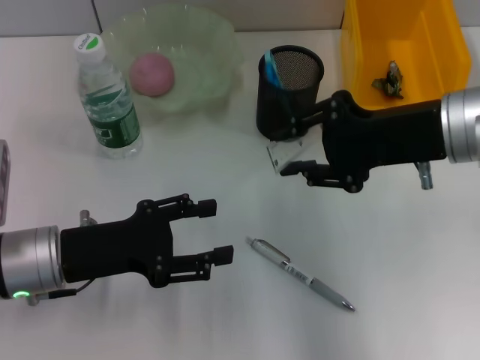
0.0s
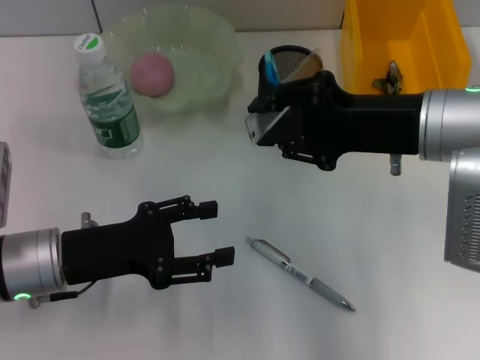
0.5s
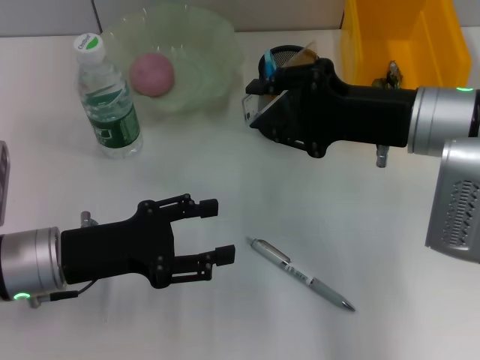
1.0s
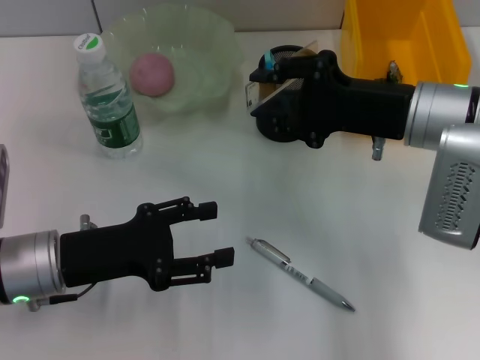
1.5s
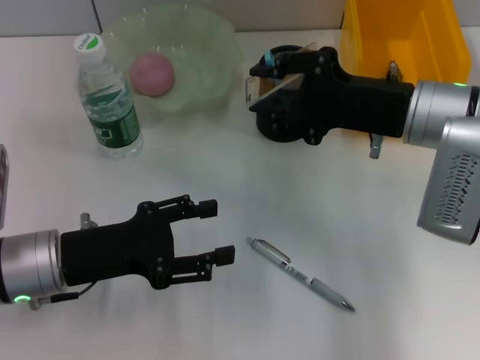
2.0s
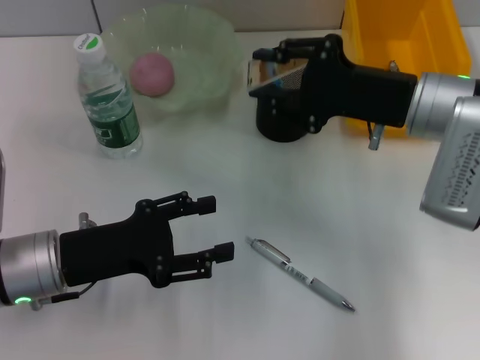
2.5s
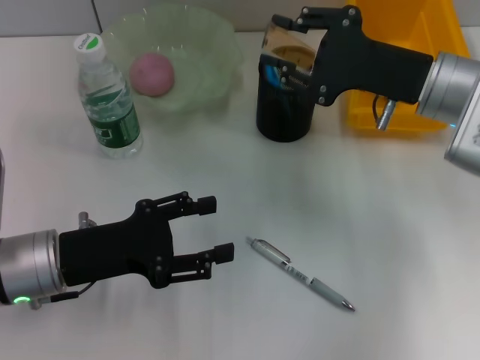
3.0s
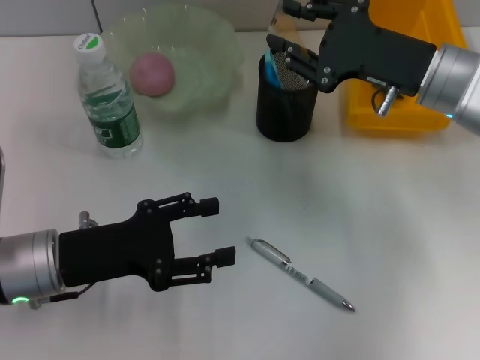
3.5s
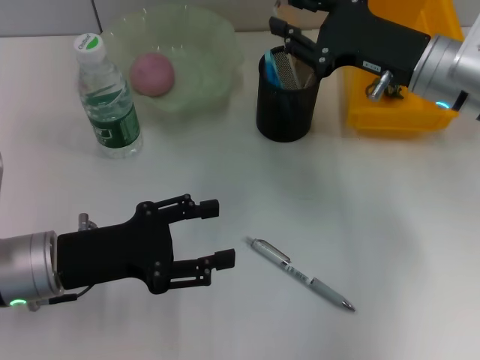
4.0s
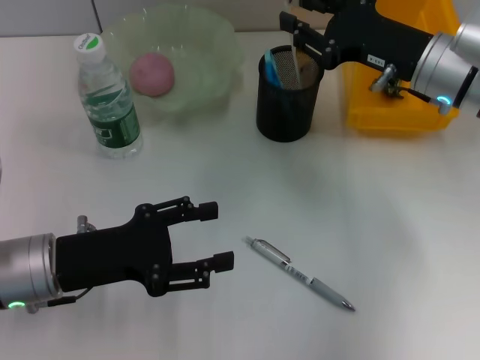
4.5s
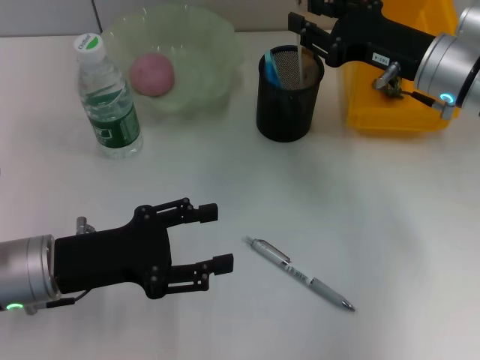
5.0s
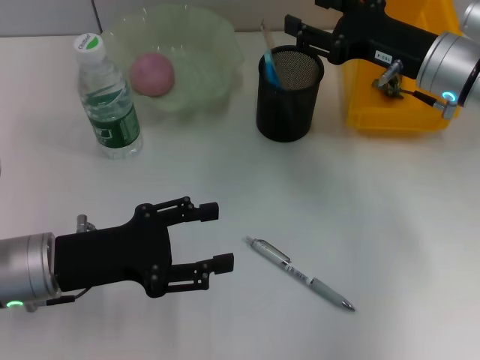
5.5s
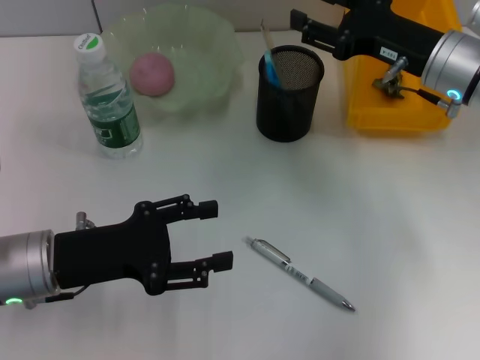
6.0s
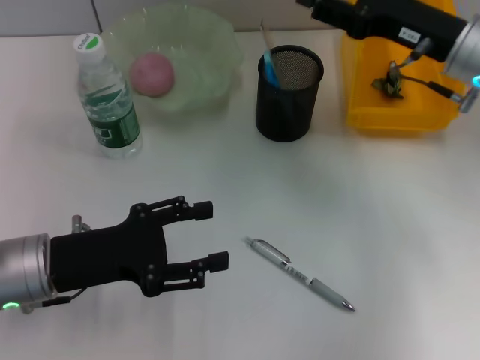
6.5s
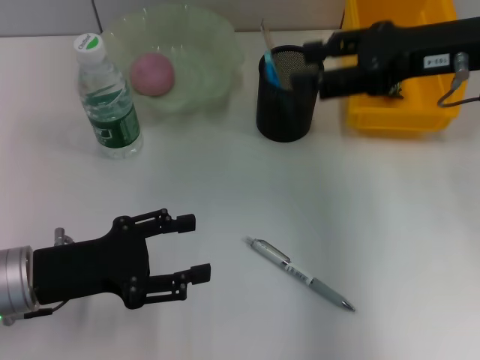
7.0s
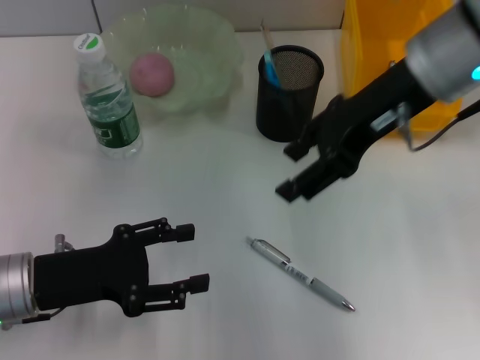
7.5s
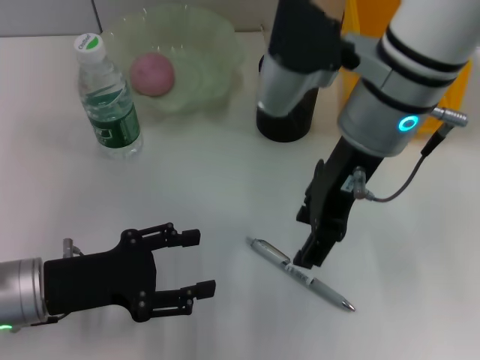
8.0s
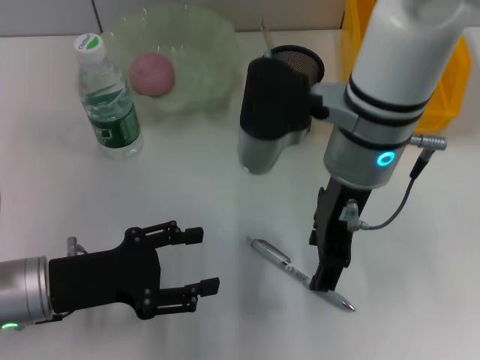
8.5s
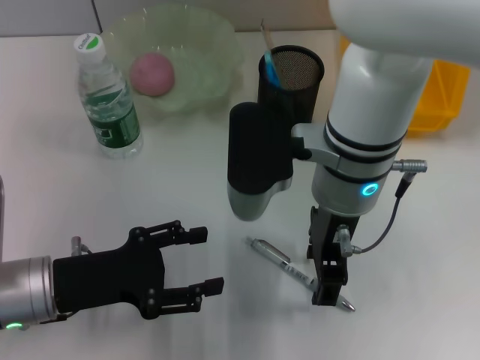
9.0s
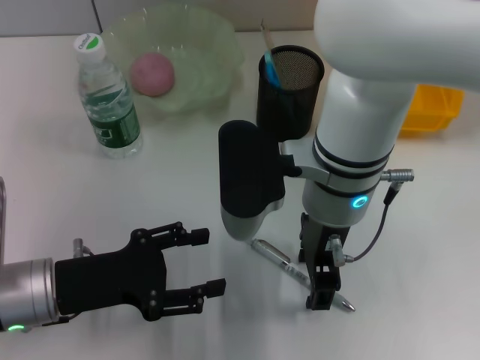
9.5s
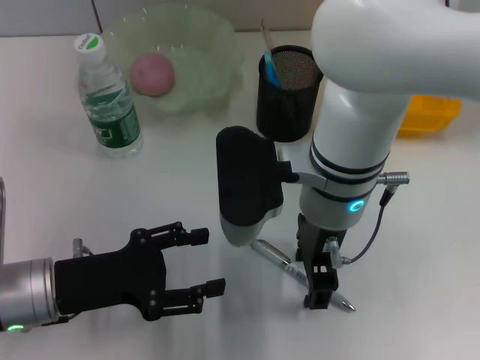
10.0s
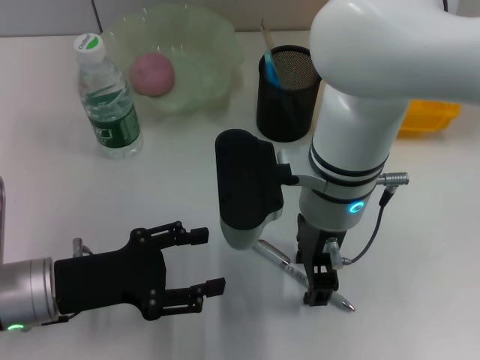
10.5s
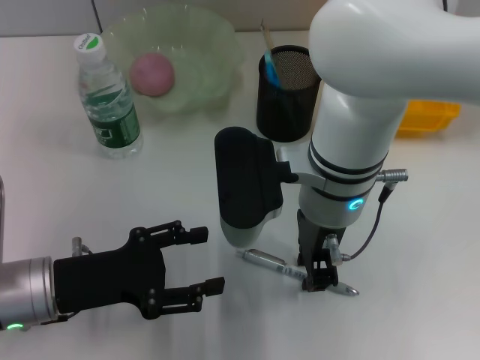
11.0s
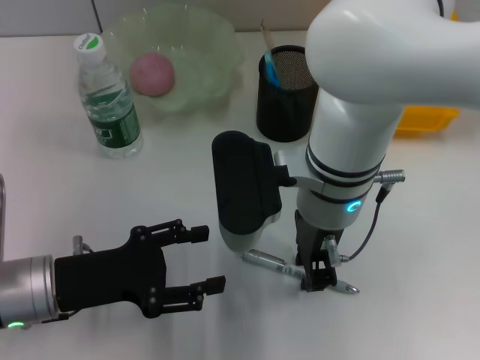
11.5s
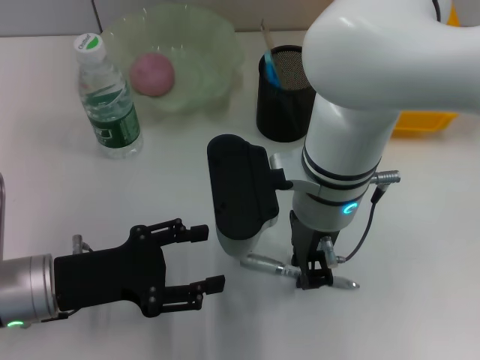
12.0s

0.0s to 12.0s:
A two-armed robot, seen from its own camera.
Step, 0.0s to 5.5s: Place the ruler into the pen holder with the right hand.
0.0s to 2.0s: The right gripper ends up approximately 5 cm from where it was.
4.0s to 6.0s: The right gripper opens.
6.0s to 8.0s: The right gripper moves to the left, upward and backward, approximately 15 cm.
8.0s to 10.0s: The right gripper travels downward by approximately 5 cm.
10.0s to 12.0s: The right gripper closes.

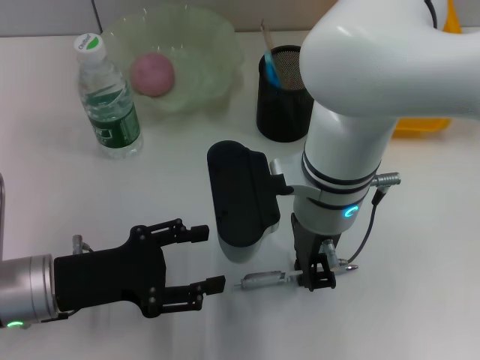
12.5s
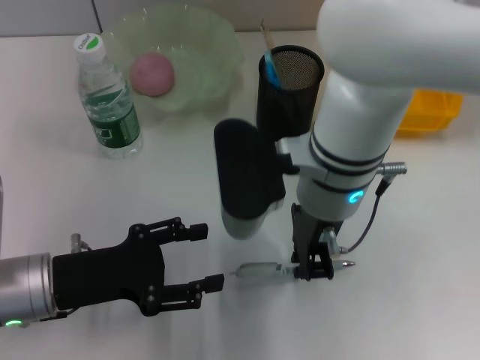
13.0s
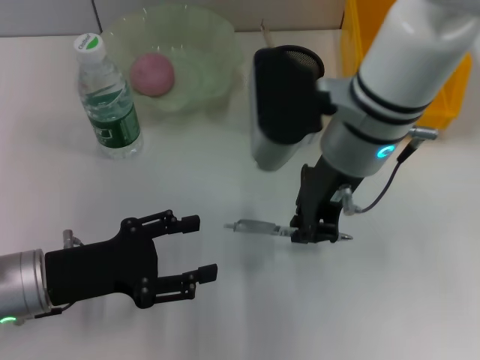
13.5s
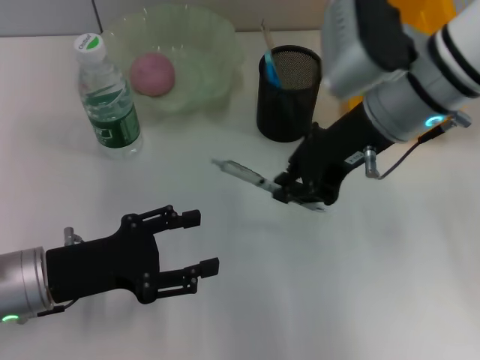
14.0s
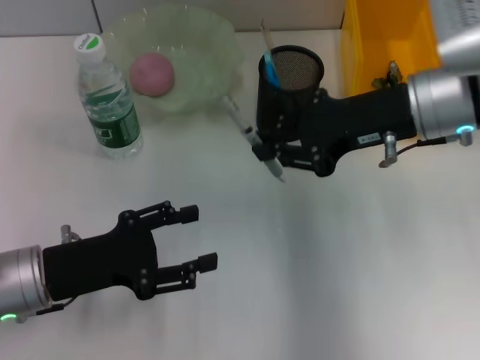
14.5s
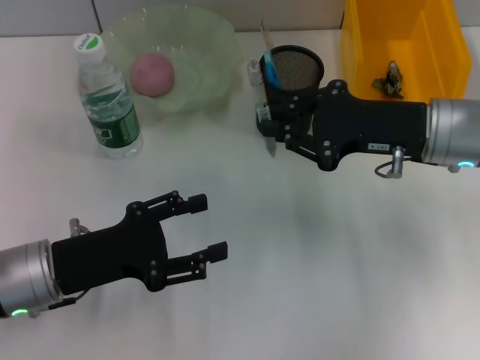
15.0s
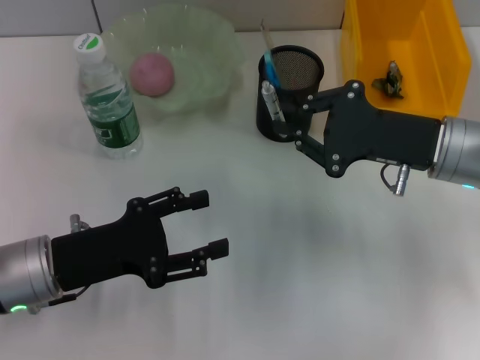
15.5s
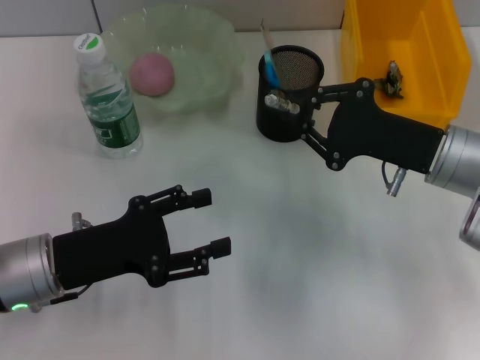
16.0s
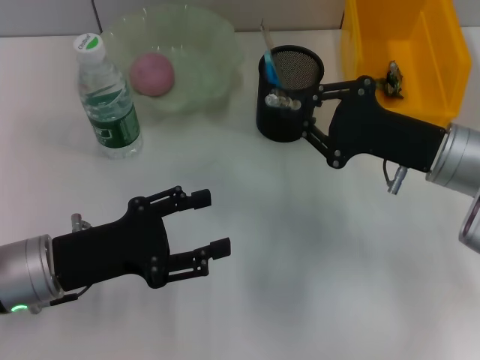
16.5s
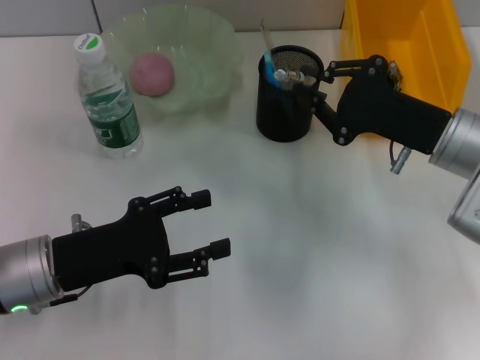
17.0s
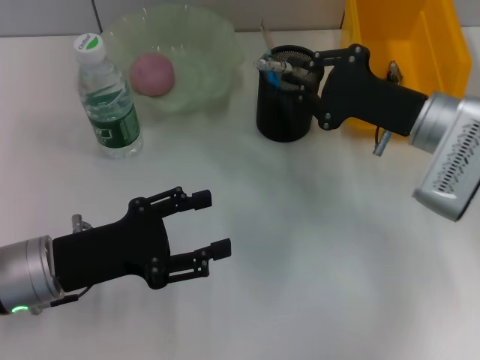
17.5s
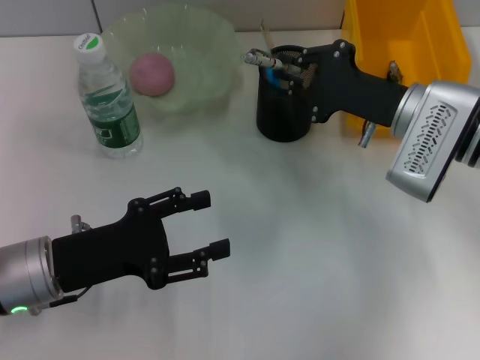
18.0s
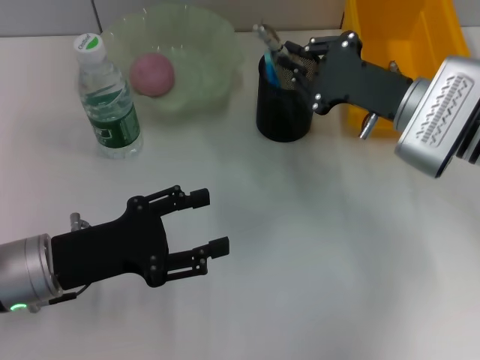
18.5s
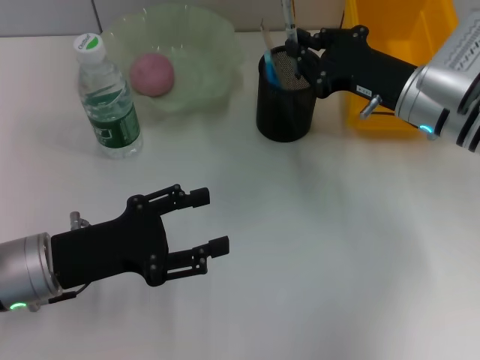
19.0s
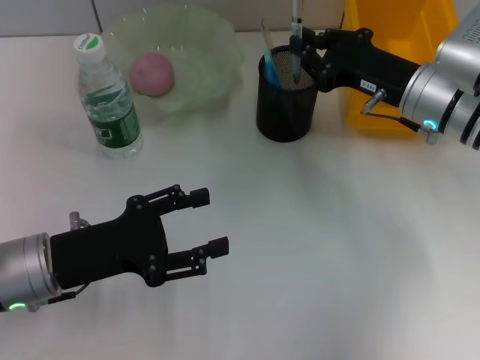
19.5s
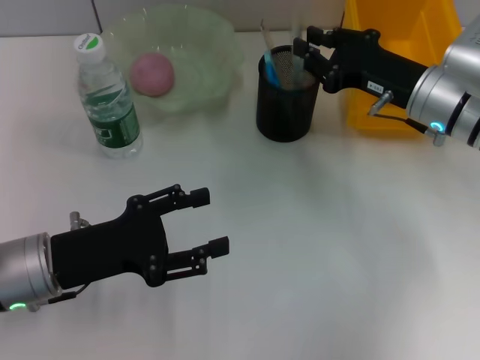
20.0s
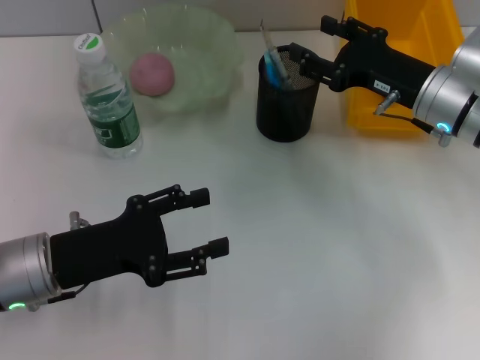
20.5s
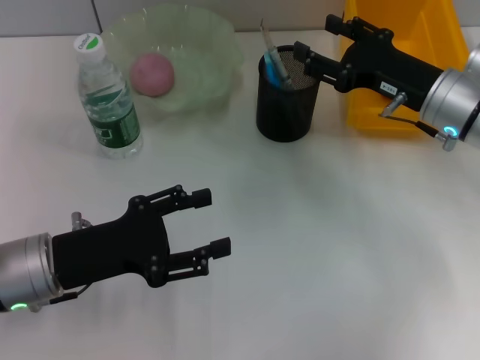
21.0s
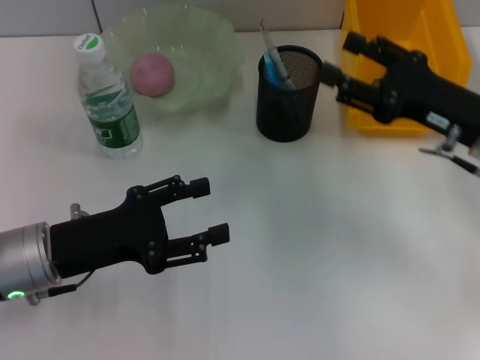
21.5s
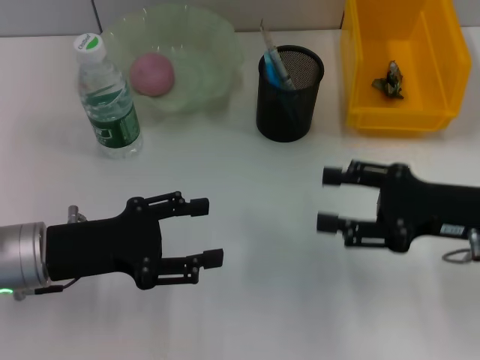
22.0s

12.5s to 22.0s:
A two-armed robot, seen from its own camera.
Step, 13.0s to 20.0s: Place the gray spring-action pen into the pen holder with the right hand.
12.5s to 14.5s: The right gripper moves to the right, roughly 15 cm.
14.5s to 16.5s: The right gripper is displaced downward by approximately 10 cm.
16.5s to 18.0s: The right gripper goes some 5 cm forward.
20.0s to 22.0s: The right gripper heads backward and to the right, covering some 10 cm, and opens up.

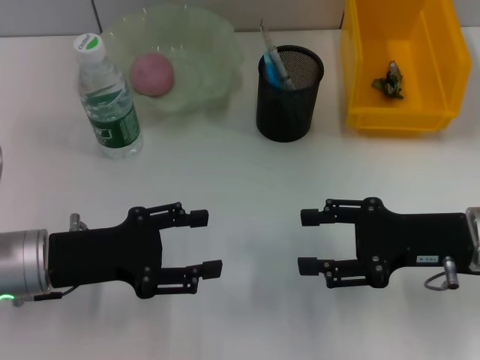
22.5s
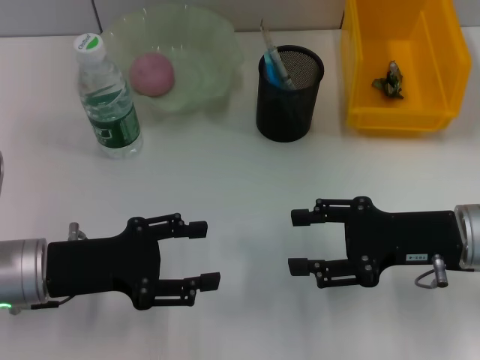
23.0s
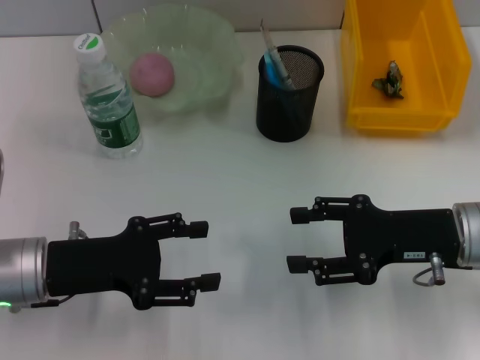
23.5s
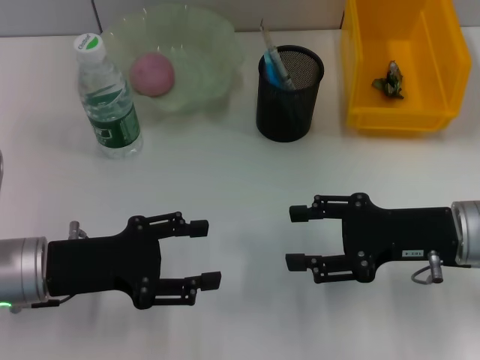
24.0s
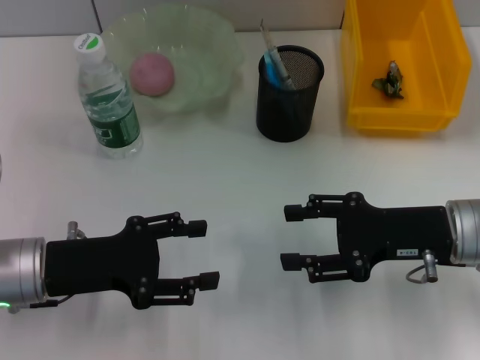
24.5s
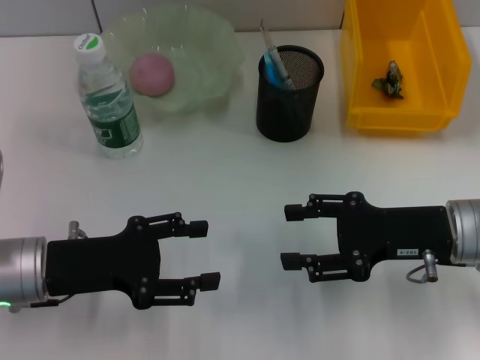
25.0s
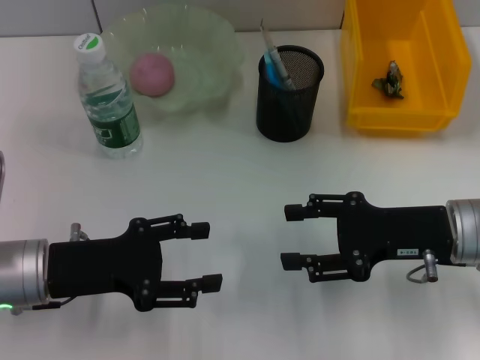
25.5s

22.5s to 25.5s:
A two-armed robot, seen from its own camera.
22.5s to 24.0s: Both grippers stay about where they are.
24.0s to 25.5s: The two grippers keep their place.
